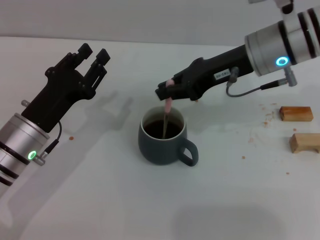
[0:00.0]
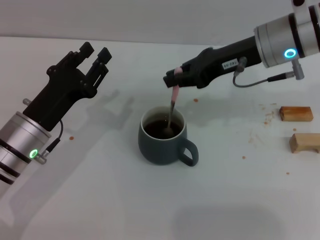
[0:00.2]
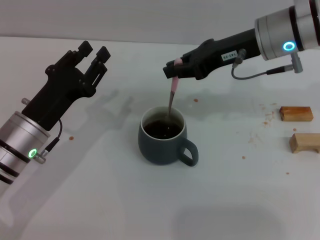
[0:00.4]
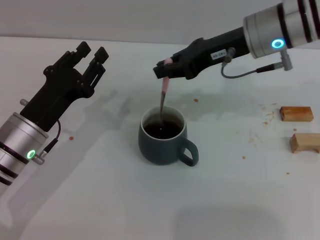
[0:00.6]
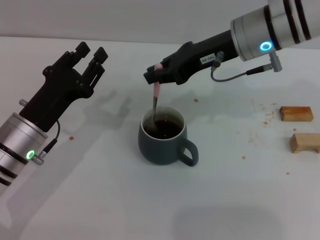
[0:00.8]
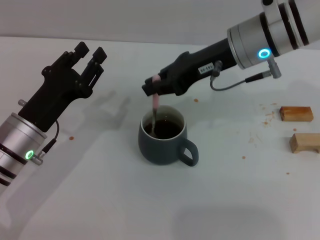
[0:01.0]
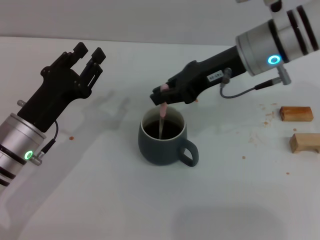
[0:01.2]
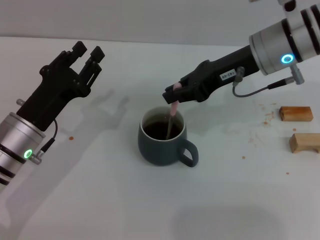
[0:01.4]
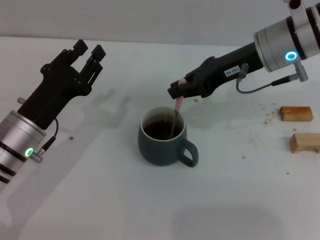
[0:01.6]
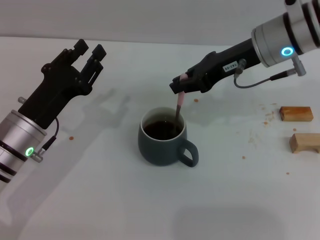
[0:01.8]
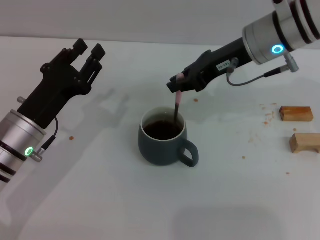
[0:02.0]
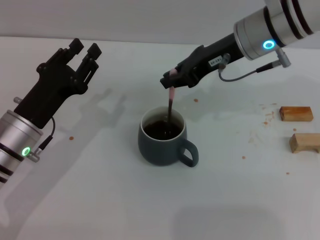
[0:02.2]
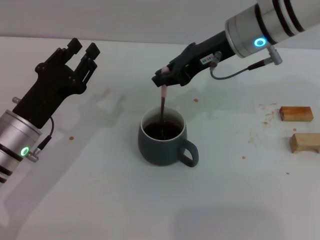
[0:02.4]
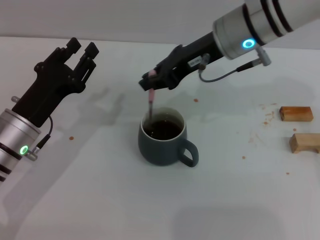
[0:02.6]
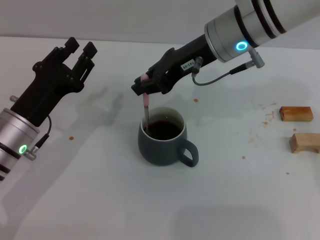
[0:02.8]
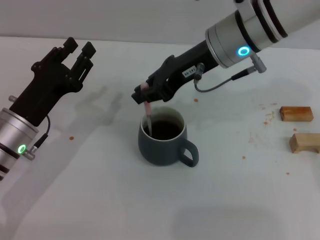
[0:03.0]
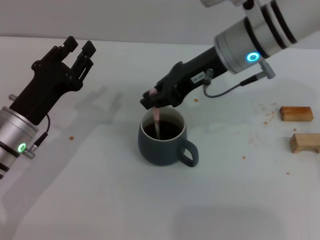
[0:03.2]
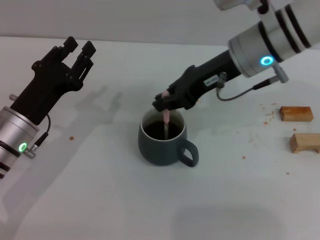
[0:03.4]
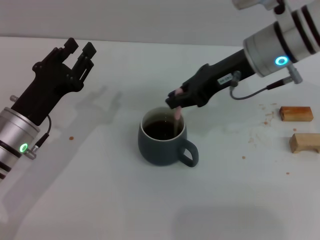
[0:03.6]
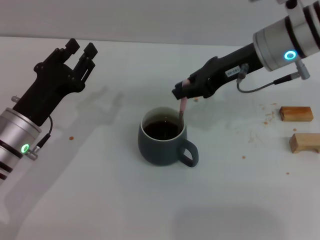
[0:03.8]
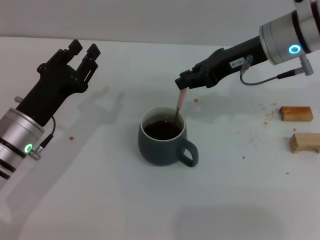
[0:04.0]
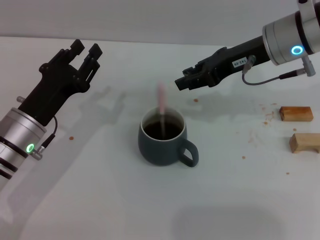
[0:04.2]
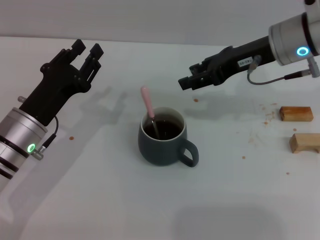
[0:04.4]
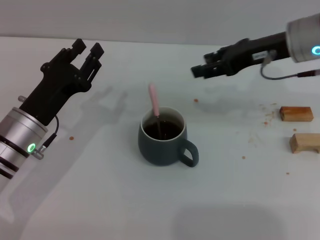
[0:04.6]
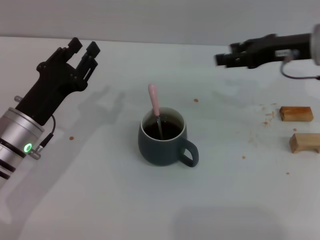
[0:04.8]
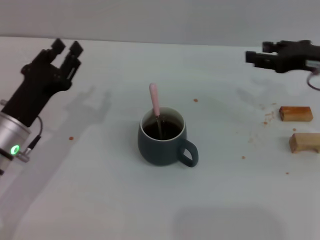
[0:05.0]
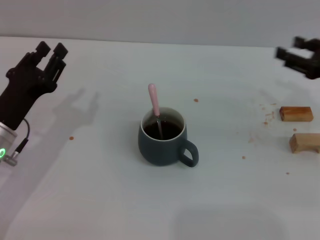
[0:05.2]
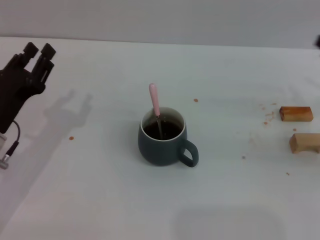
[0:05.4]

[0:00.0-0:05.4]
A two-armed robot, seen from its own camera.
Task of the whole recording: Move the grey cup to the center, lift the pink spoon, stir it three times in the cup, and put the spoon into the cup.
Step, 0:00.0 to 0:04.0: Stir the coffee in the cup with the right gripper.
0:00.0 to 0:01.4: The grippers stay close to where they were, moving slightly.
0:01.4 to 0:02.8: The right gripper moves to the left, some 5 cm.
0:02.8 to 0:04.0: The right gripper heads to the right, covering roughly 5 cm.
0:04.0 to 0:05.4: The right gripper shifts roughly 25 cm to the right, backward and downward, and opens.
